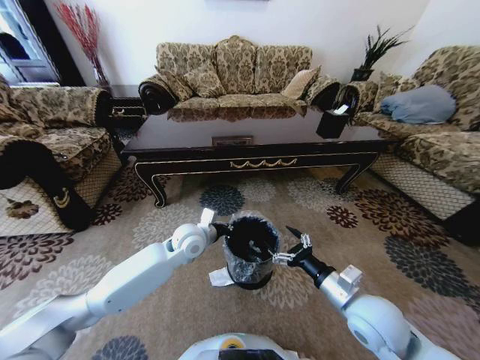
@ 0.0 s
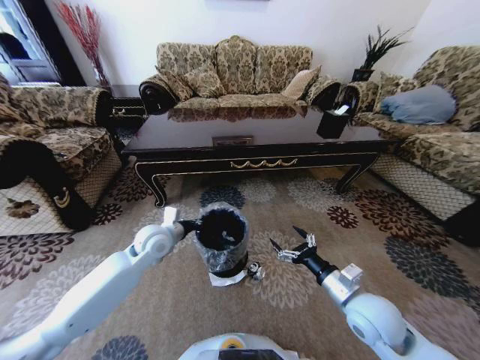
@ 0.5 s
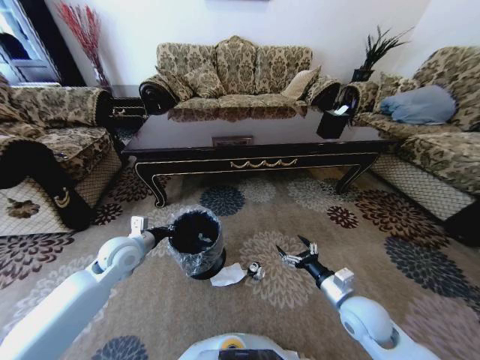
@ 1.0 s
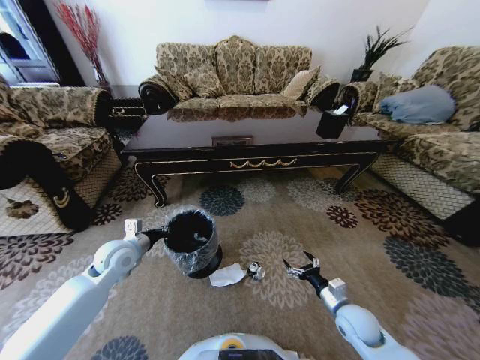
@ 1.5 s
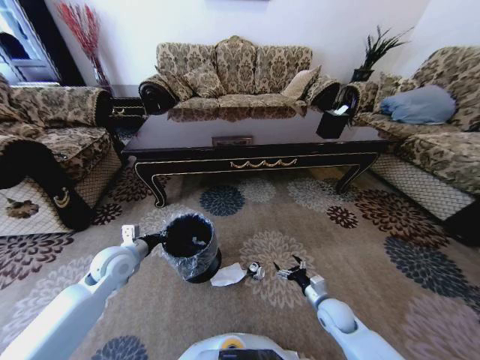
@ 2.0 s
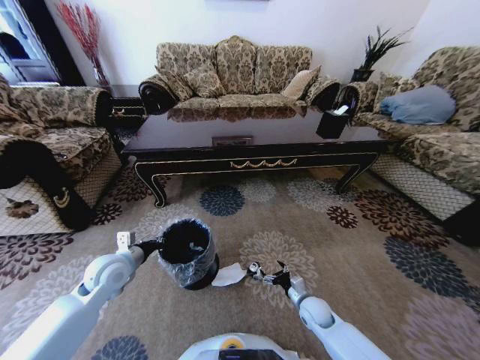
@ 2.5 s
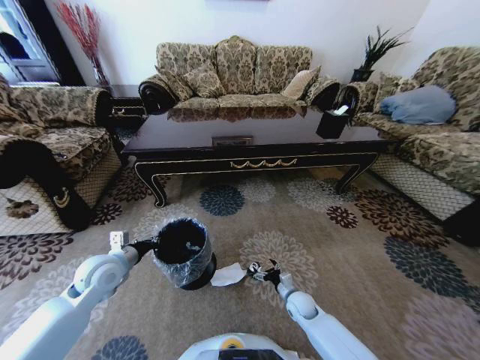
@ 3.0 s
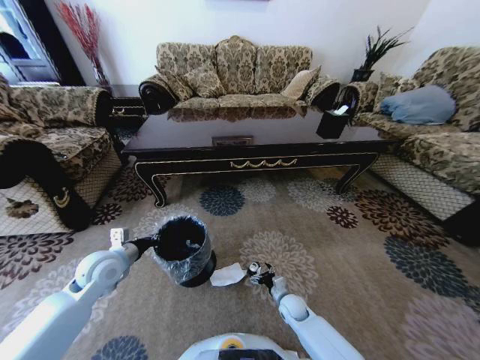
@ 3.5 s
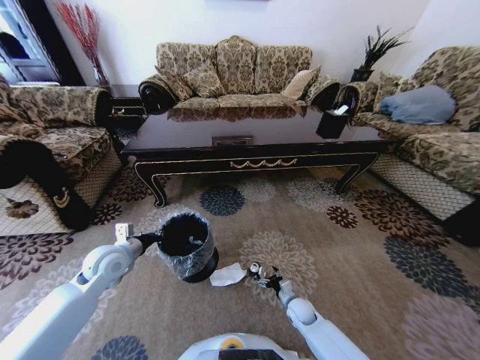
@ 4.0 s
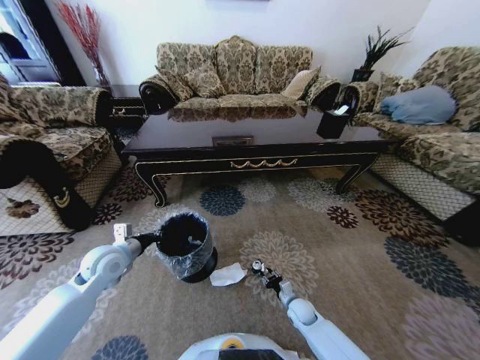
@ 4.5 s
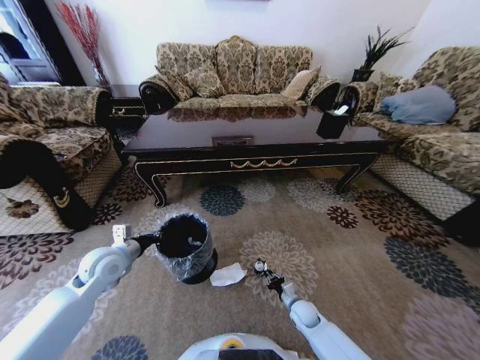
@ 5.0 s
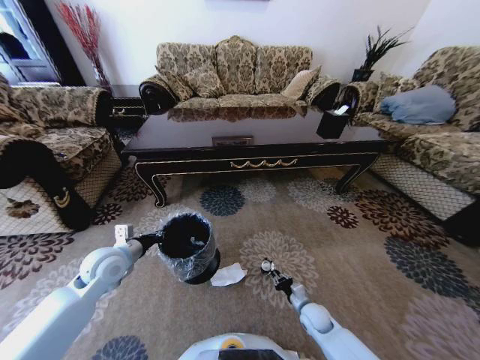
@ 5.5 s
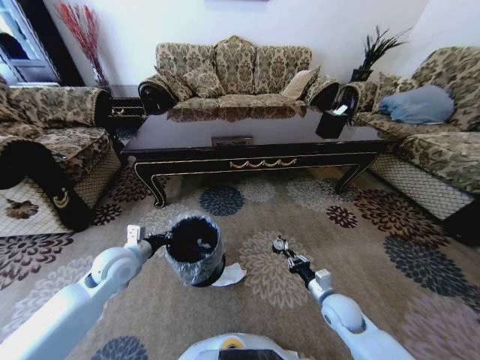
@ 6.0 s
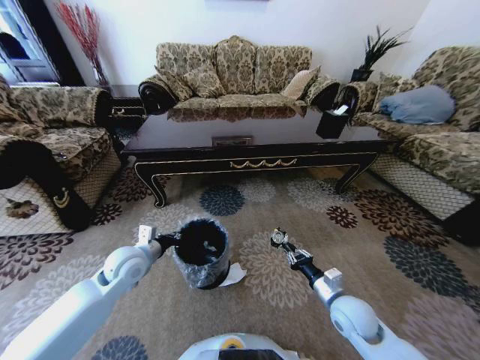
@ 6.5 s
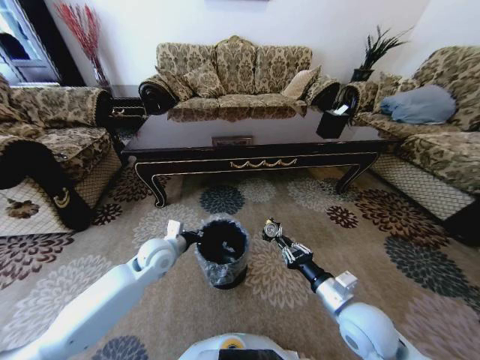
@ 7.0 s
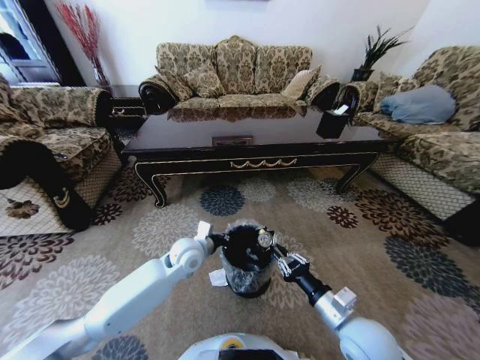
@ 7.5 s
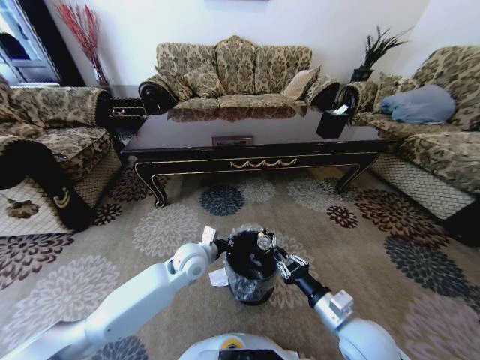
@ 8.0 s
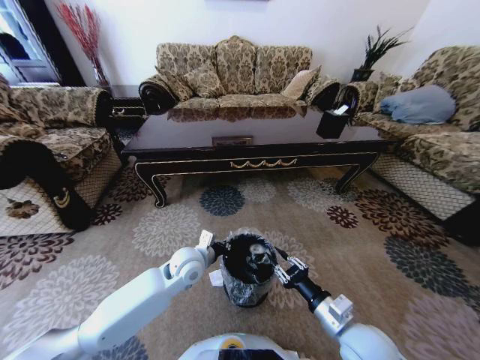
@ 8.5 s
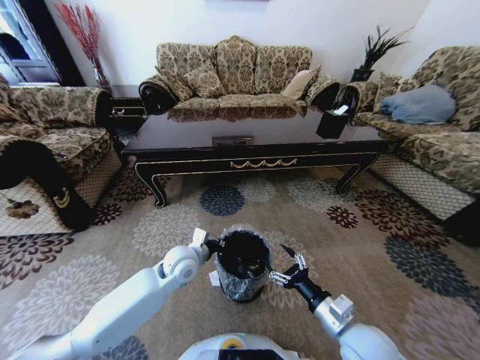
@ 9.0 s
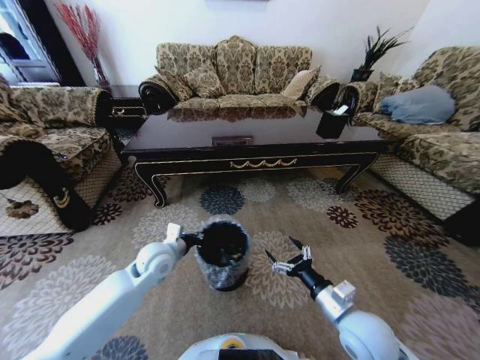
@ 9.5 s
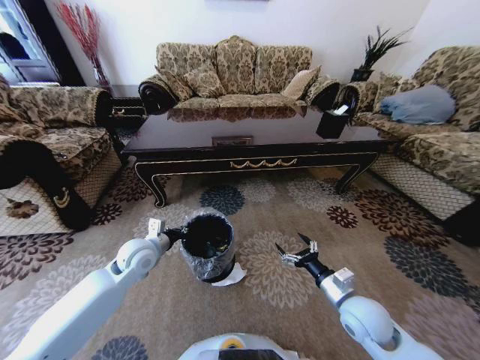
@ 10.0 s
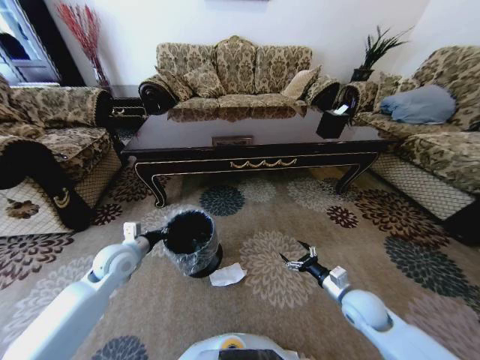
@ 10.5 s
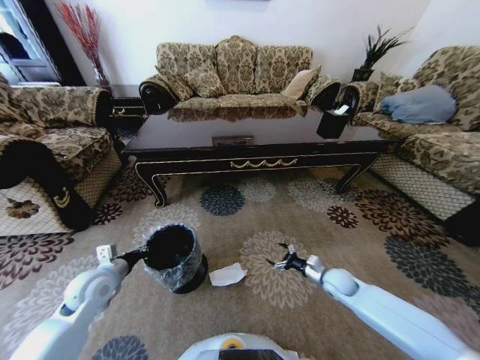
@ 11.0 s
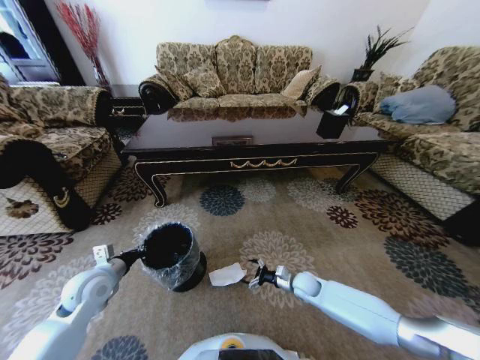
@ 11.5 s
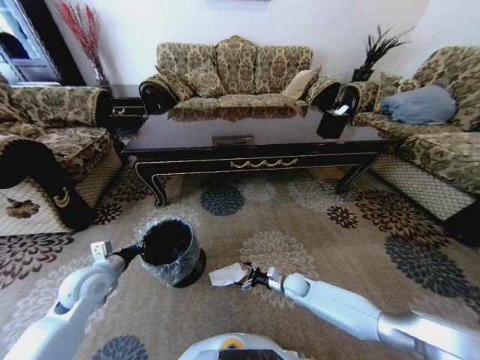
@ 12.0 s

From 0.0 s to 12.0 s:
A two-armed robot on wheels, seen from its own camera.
Task of the whole recording: Move to the front of the table and pick up the trash from the floor, then place it into the trash bin.
From 0.0 s to 2.0 s: The right gripper heads downward, covering roughly 20 cm. The left gripper shifts about 20 cm to the left.
From 2.0 s to 4.0 s: The right gripper is displaced downward and to the left by approximately 10 cm.
From 4.0 s to 6.0 s: The right gripper goes roughly 15 cm upward and to the right, and closes its fingers.
From 6.0 s to 8.0 s: The right gripper heads upward and backward, covering approximately 15 cm. The left gripper shifts about 20 cm to the right.
From 8.0 s to 10.0 s: The right gripper heads forward, covering some 5 cm, and opens. Meanwhile the left gripper travels to the left by roughly 15 cm.
From 10.0 s to 12.0 s: The right gripper is displaced downward and forward by roughly 25 cm; the left gripper shifts approximately 10 cm to the left and backward.

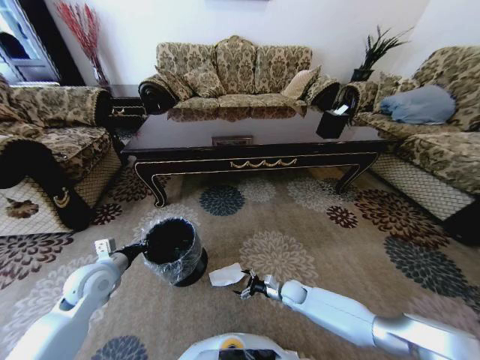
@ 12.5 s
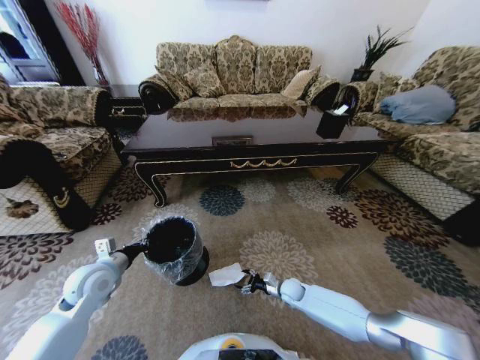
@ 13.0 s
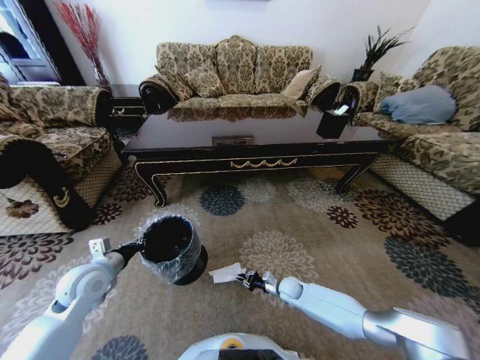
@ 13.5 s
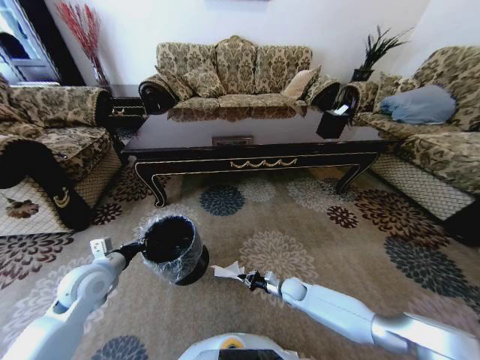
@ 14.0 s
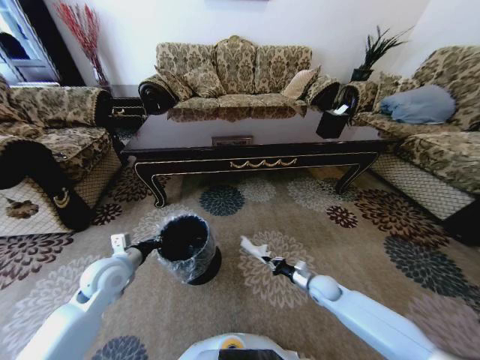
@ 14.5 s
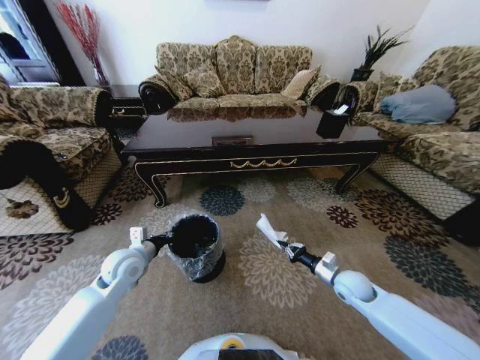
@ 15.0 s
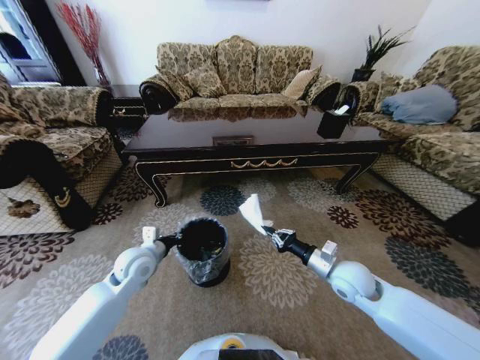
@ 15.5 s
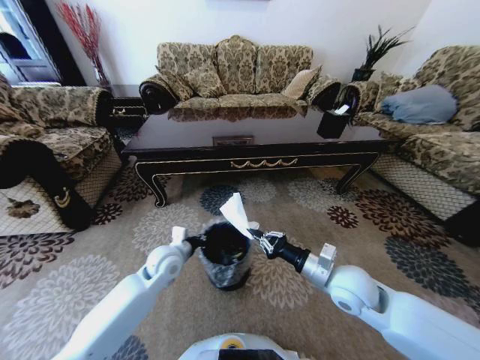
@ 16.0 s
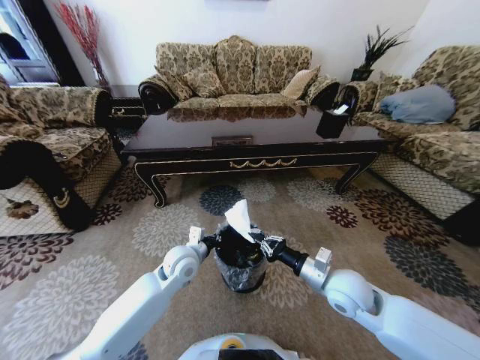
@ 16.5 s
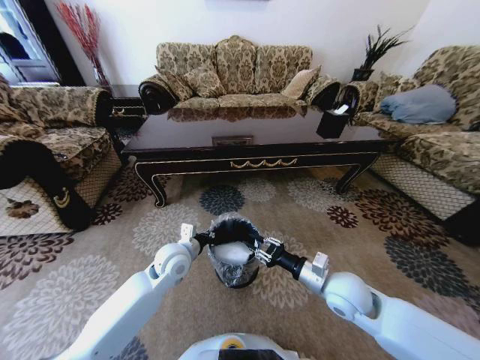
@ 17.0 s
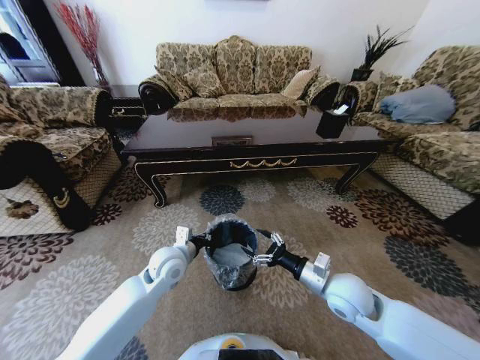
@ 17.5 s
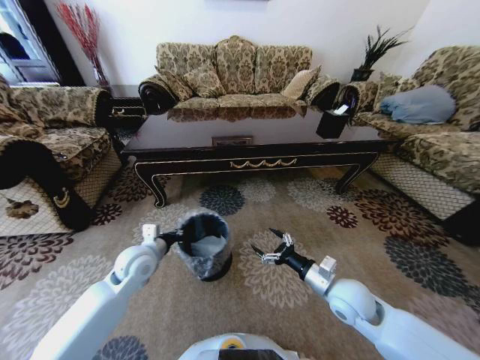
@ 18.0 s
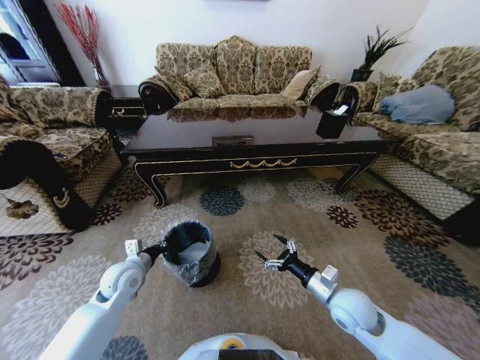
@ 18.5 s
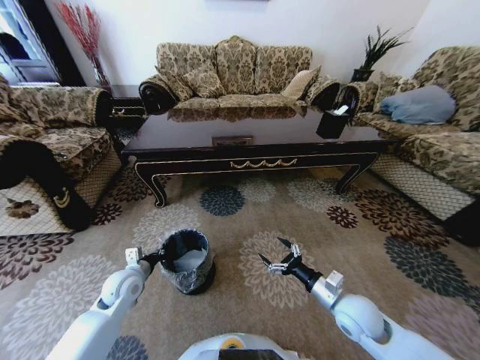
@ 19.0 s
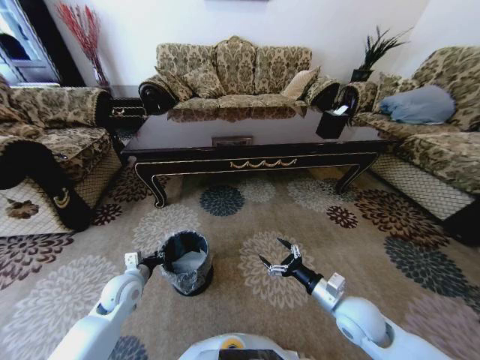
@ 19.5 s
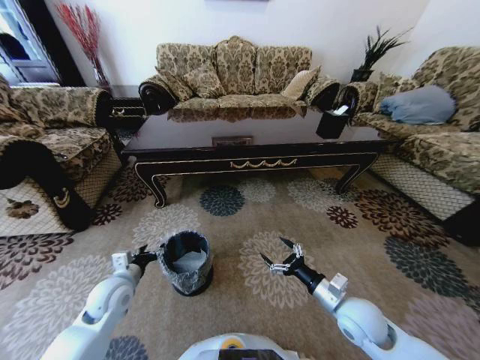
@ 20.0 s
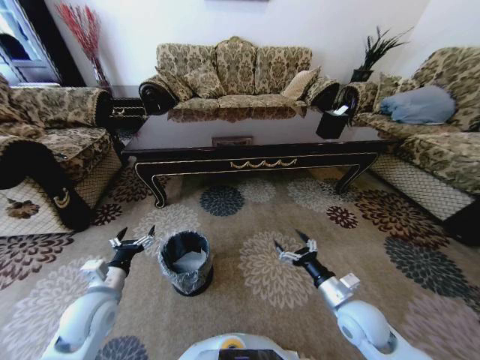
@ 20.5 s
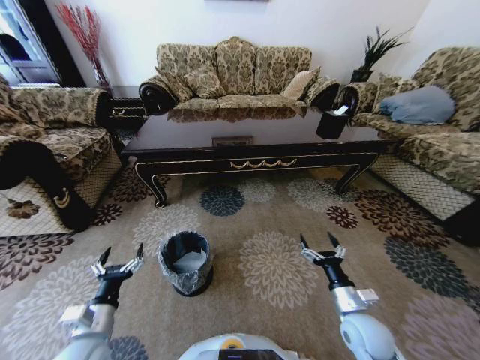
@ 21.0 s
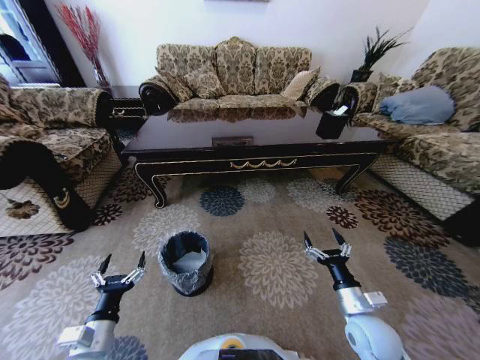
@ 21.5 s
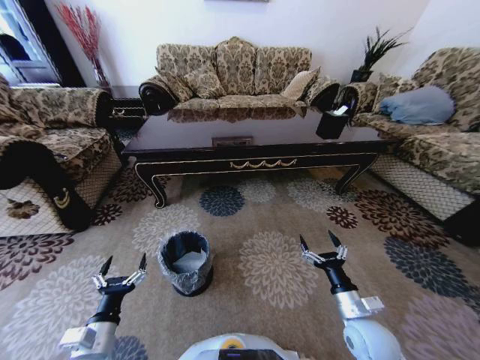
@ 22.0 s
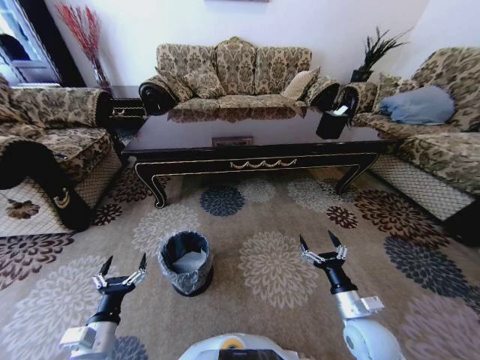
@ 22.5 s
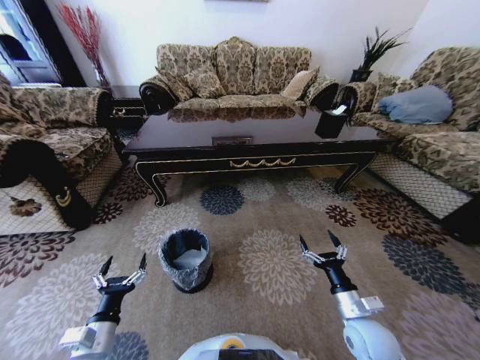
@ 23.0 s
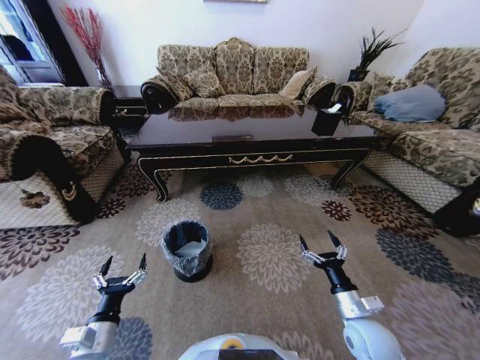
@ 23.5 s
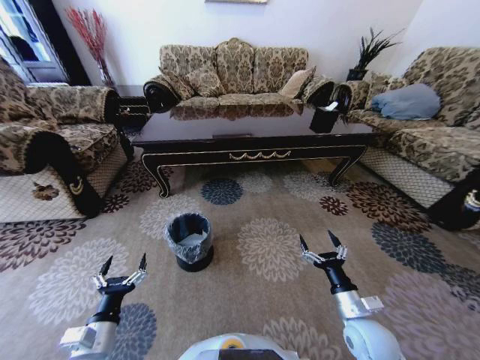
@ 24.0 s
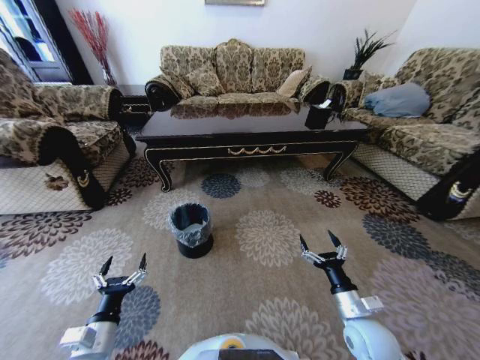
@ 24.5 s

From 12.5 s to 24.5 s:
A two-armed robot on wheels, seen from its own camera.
Task of the whole recording: Move to the front of the table and pick up the trash from the floor, then place it into the trash bin.
From 12.5 s to 14.5 s: The right gripper goes roughly 10 cm to the right and upward, and closes up.
From 14.5 s to 16.5 s: The right gripper heads upward, covering approximately 20 cm. The left gripper is displaced to the right by roughly 20 cm.
From 16.5 s to 18.5 s: The right gripper heads downward, covering roughly 5 cm, and opens up. The left gripper goes about 15 cm to the left.
From 18.5 s to 20.5 s: The left gripper travels backward by about 10 cm, and opens up.
From 20.5 s to 22.5 s: The left gripper travels backward by approximately 10 cm.

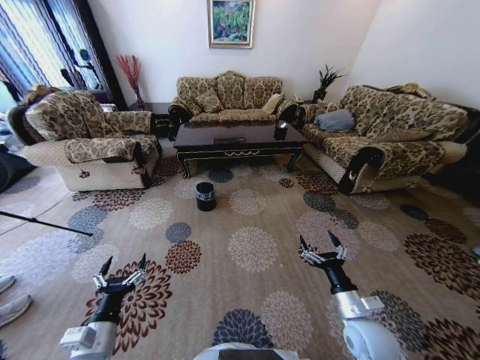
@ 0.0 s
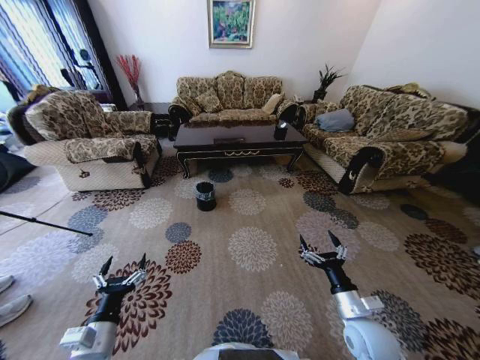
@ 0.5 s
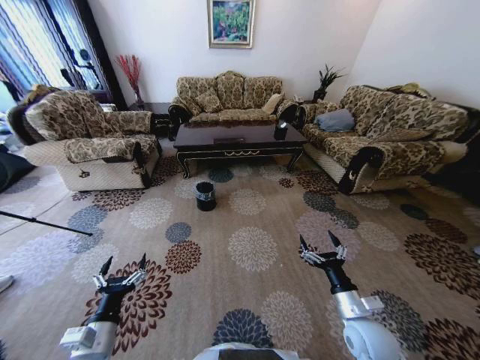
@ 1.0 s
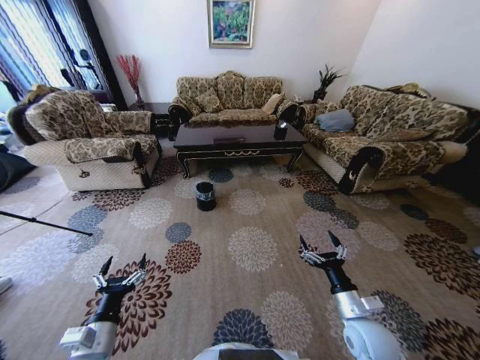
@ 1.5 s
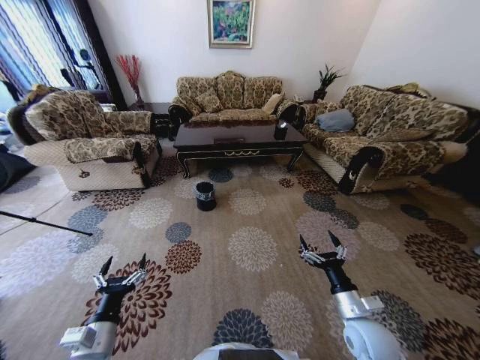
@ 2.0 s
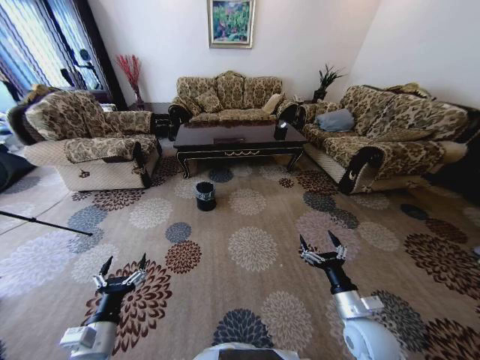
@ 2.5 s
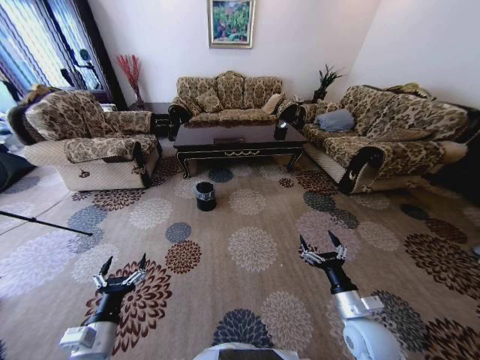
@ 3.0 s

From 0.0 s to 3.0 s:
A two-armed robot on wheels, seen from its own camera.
Task of the whole recording: Move to the front of the table and pick up the trash from the floor, then place it into the trash bin.
From 0.0 s to 3.0 s: Both grippers stay put.
